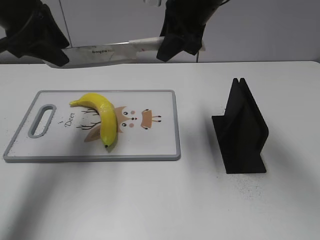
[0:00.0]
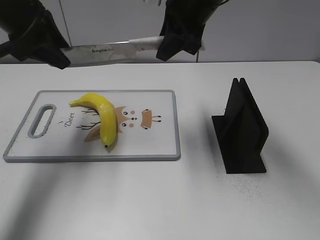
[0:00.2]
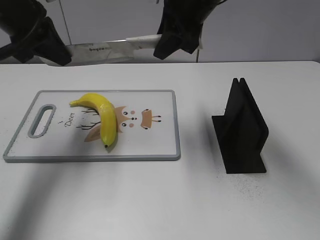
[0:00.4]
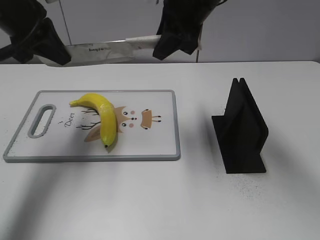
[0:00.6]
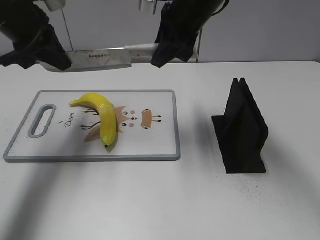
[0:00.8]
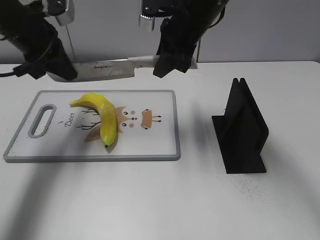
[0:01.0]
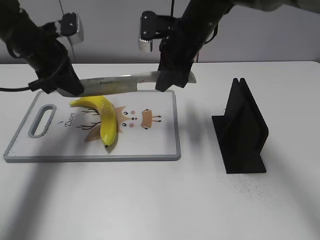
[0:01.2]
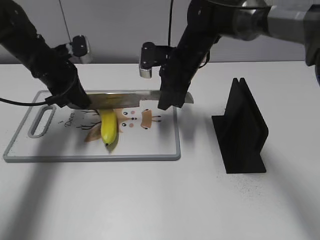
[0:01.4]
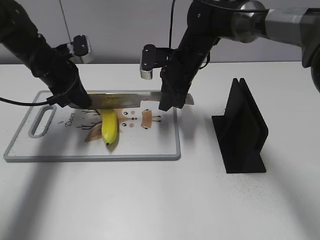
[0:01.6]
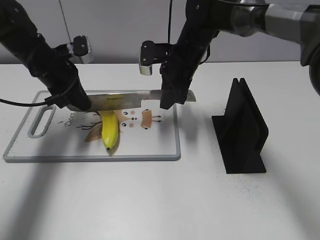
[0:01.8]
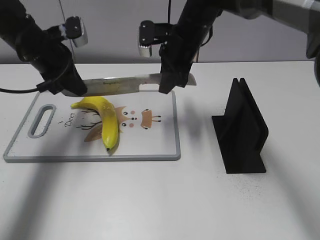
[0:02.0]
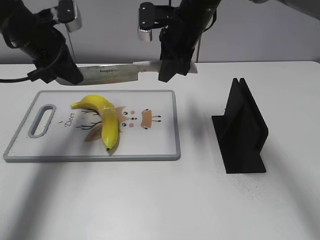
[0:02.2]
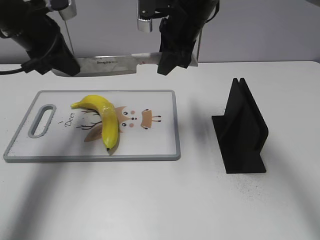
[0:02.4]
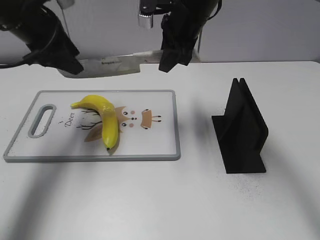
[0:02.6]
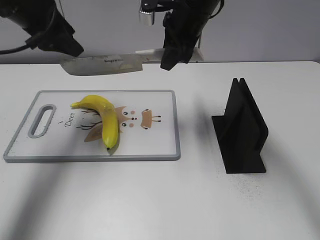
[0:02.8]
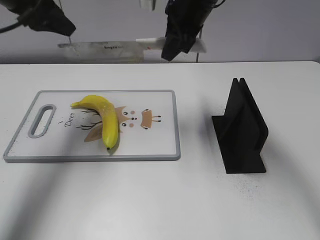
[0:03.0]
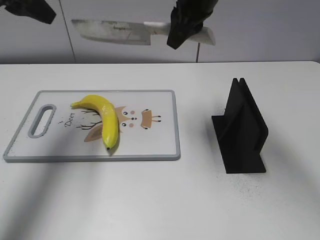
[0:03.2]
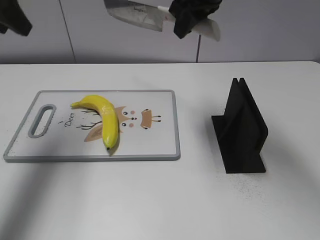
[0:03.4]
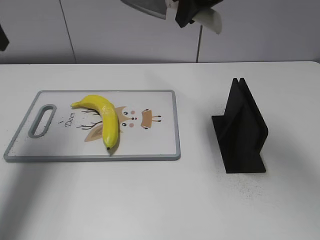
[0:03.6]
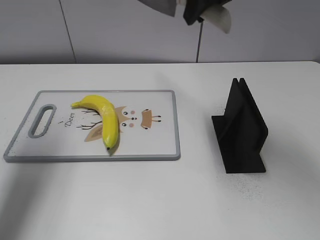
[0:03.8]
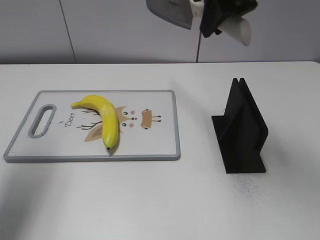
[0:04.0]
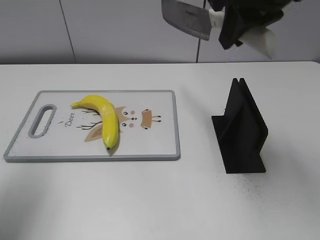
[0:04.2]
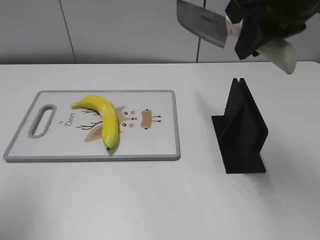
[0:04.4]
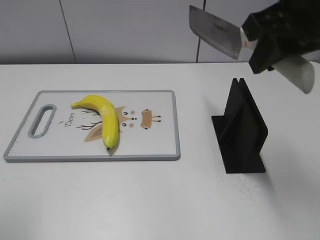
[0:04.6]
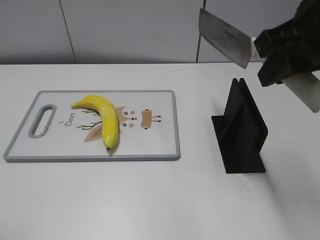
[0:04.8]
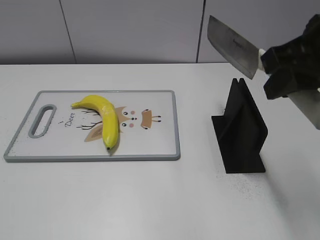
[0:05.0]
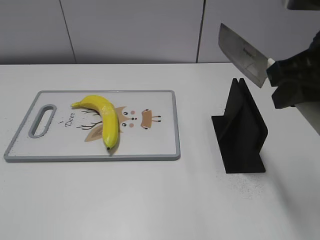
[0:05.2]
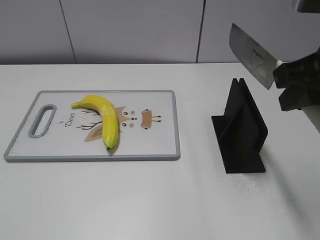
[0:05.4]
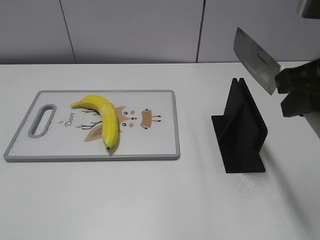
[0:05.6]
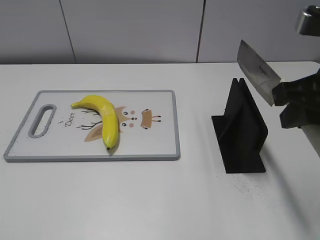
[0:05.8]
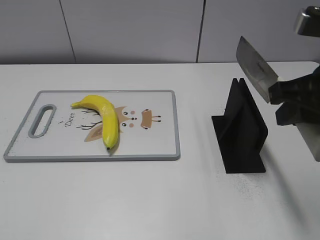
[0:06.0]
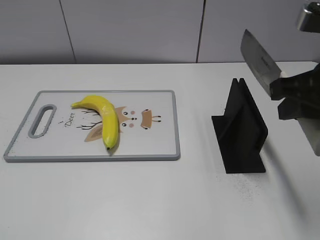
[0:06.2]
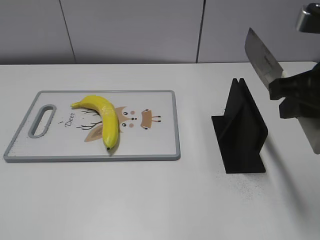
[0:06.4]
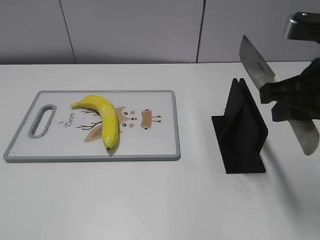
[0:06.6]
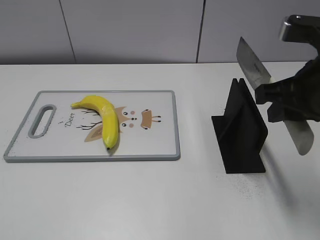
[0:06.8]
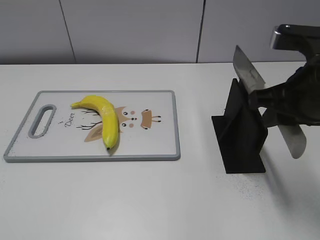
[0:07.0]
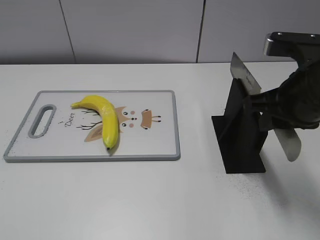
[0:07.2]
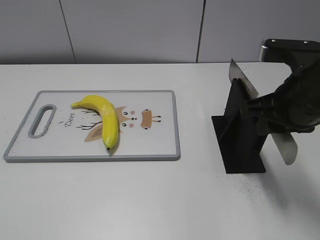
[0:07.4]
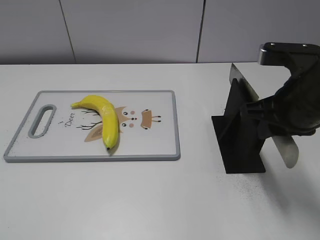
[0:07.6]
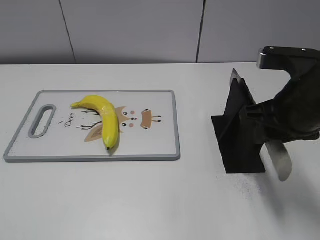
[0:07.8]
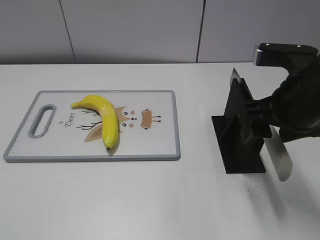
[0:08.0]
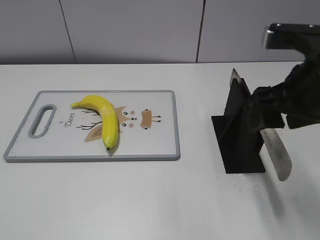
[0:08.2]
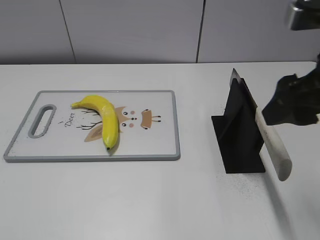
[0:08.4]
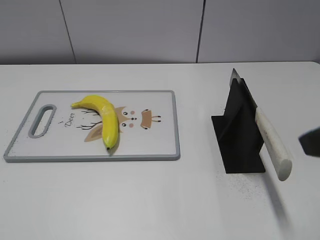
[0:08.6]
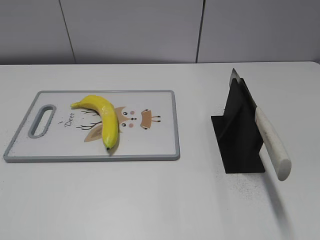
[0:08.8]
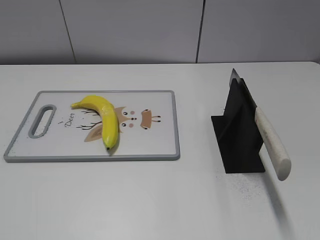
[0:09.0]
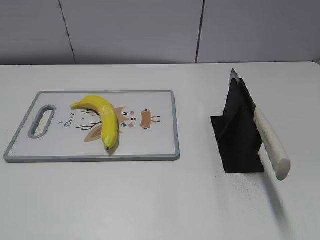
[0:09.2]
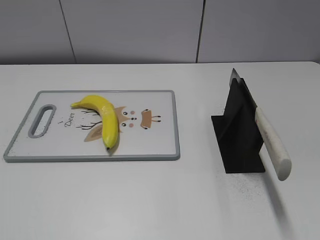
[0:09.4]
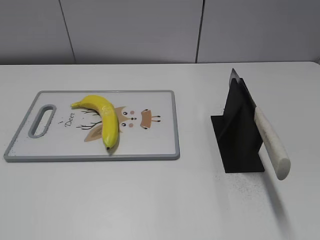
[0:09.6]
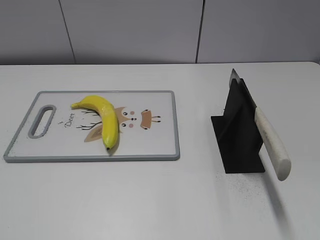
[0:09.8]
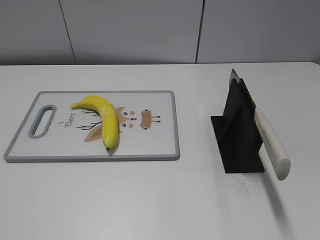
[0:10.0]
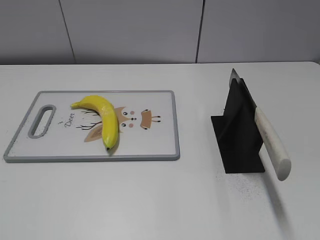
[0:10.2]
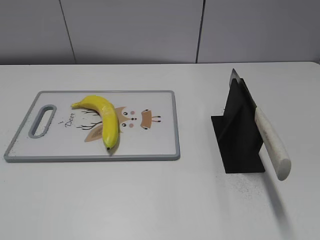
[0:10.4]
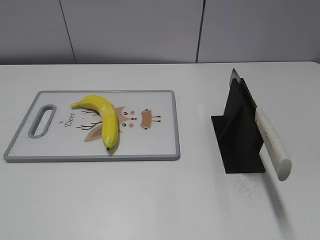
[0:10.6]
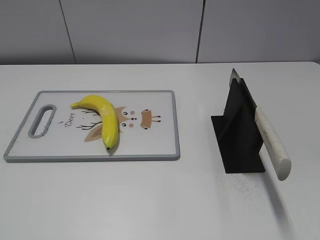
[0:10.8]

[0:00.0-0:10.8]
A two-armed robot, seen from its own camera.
Task of the whole recording: cut plastic banana.
Step, 0:00.0 to 0:02.8: Lift the knife with your right hand.
Step, 0:03.2 to 0:04.2: Cut the banana with your right hand.
Step, 0:04.4 to 0:05.4: Lift the knife with your right hand.
Step, 0:05.6 to 0:10.8: Place the knife on the storage rack with your right hand.
0:00.0 to 0:01.6: Both grippers travel together downward, some 15 cm. The left gripper closes its fingers.
0:01.6 to 0:03.0: The two grippers go about 15 cm upward. The left gripper opens up.
0:03.0 to 0:04.6: The right gripper is displaced backward, to the right and upward by about 20 cm. Meanwhile the left gripper shifts about 25 cm backward.
0:04.6 to 0:06.2: The right gripper heads downward and backward, covering about 10 cm, while the left gripper moves backward and downward, approximately 15 cm.
0:06.2 to 0:07.8: The right gripper is displaced downward by about 5 cm.
0:07.8 to 0:09.2: The right gripper moves backward and to the right, about 25 cm, and opens its fingers.

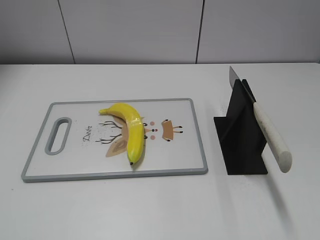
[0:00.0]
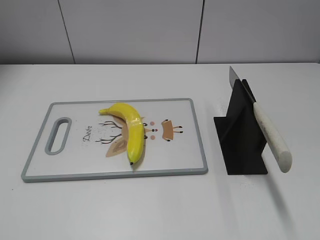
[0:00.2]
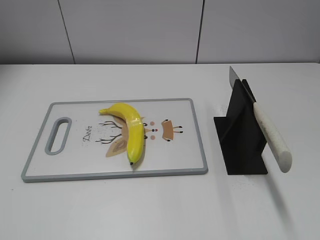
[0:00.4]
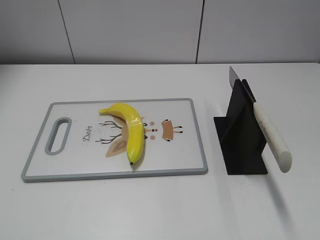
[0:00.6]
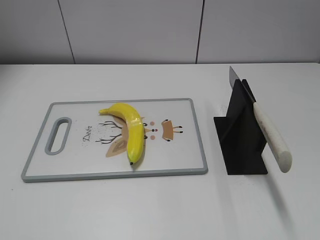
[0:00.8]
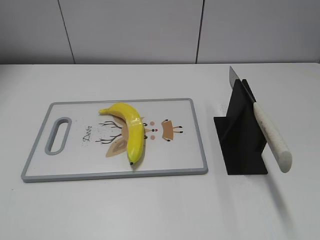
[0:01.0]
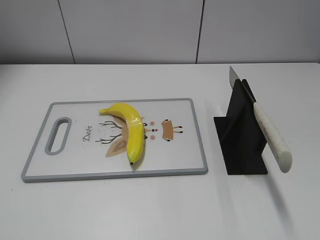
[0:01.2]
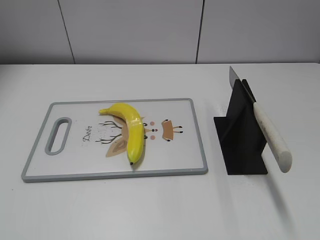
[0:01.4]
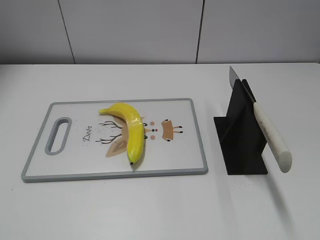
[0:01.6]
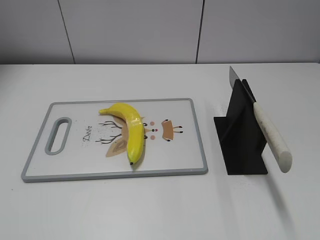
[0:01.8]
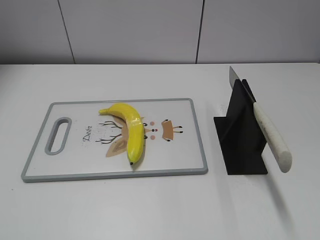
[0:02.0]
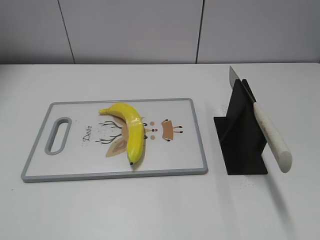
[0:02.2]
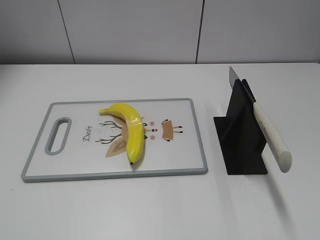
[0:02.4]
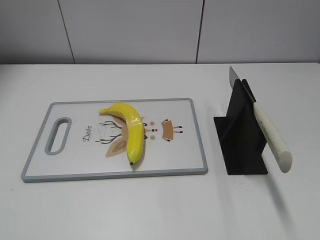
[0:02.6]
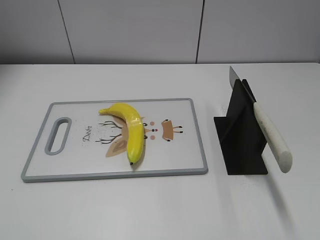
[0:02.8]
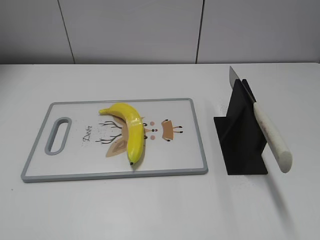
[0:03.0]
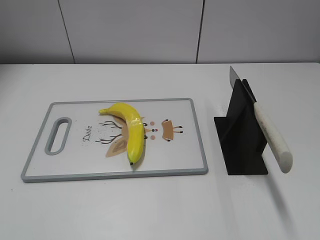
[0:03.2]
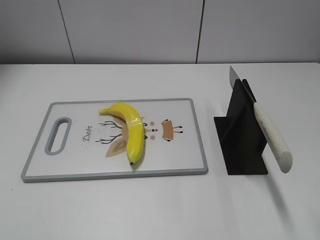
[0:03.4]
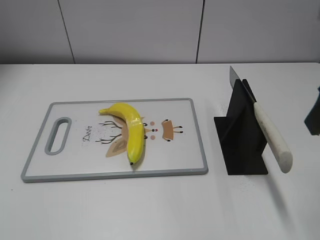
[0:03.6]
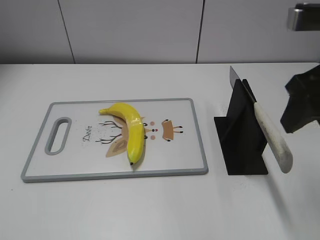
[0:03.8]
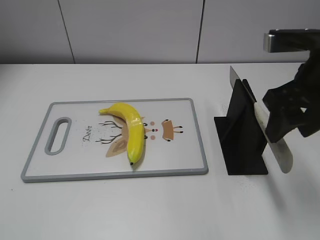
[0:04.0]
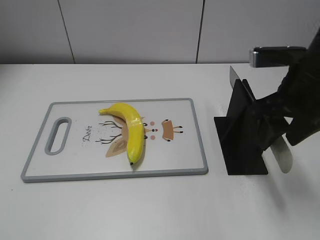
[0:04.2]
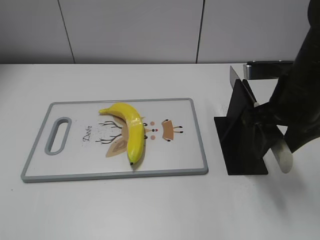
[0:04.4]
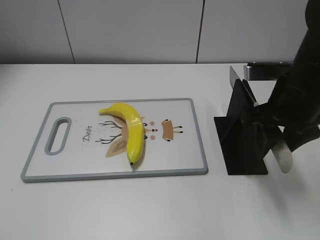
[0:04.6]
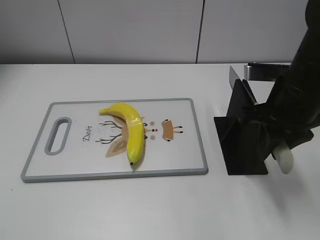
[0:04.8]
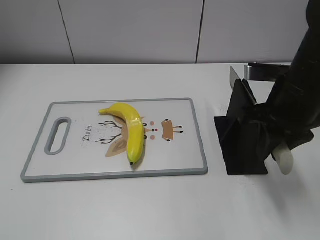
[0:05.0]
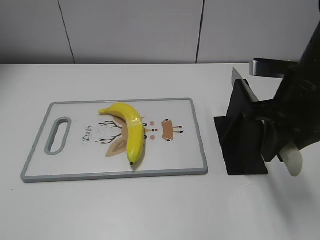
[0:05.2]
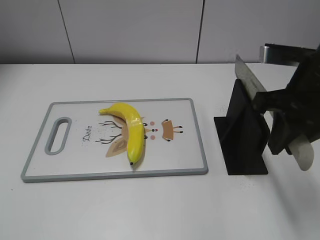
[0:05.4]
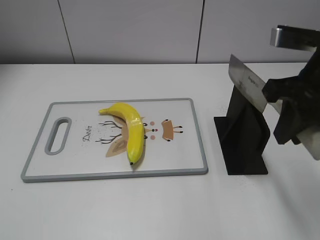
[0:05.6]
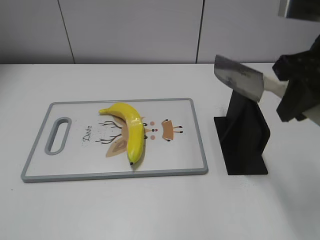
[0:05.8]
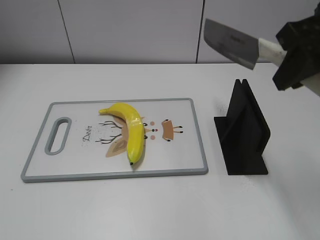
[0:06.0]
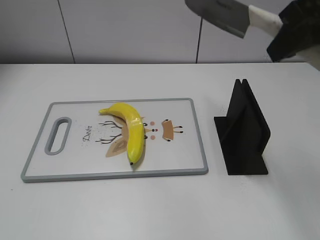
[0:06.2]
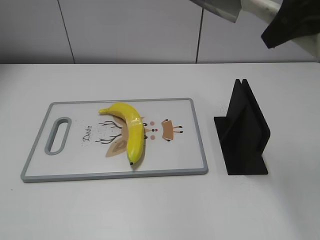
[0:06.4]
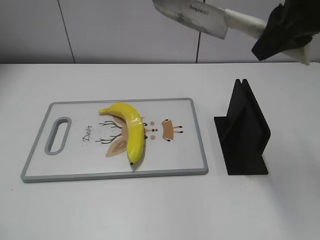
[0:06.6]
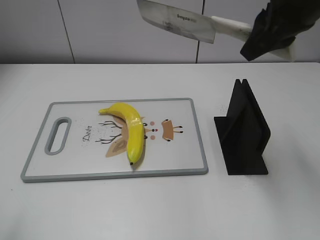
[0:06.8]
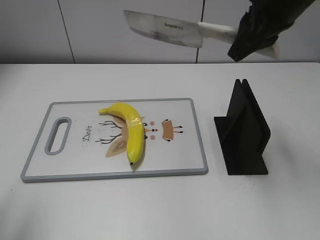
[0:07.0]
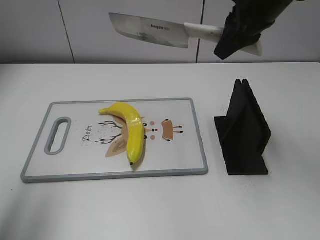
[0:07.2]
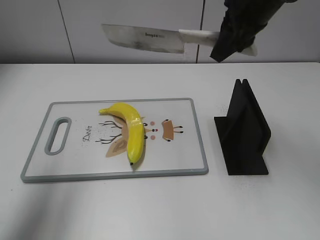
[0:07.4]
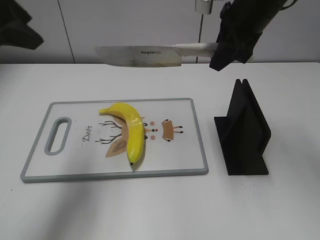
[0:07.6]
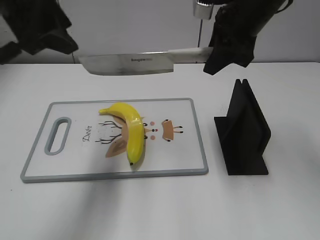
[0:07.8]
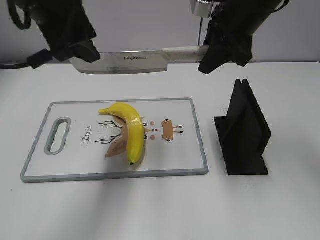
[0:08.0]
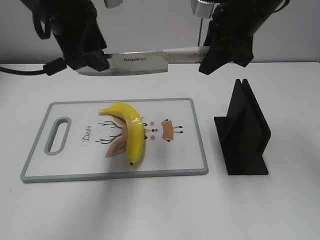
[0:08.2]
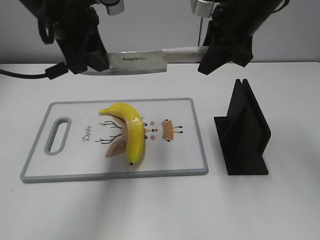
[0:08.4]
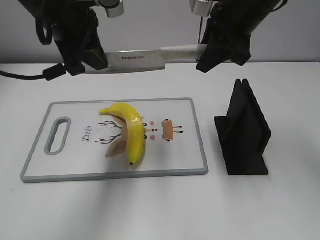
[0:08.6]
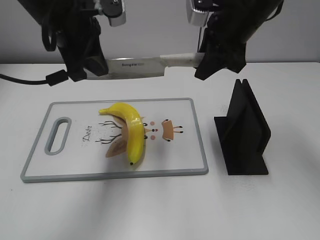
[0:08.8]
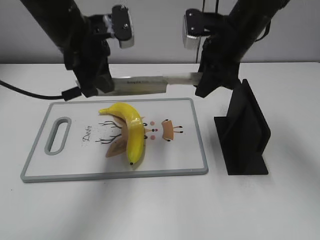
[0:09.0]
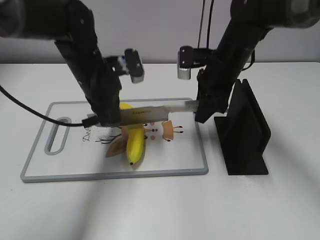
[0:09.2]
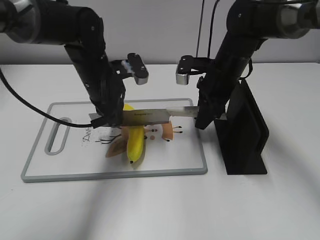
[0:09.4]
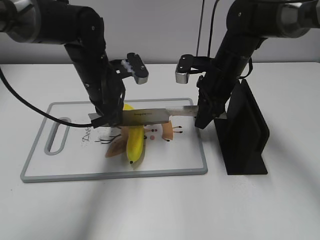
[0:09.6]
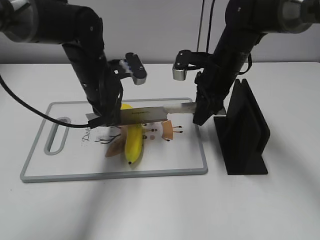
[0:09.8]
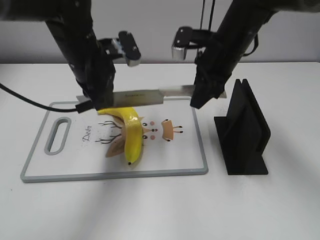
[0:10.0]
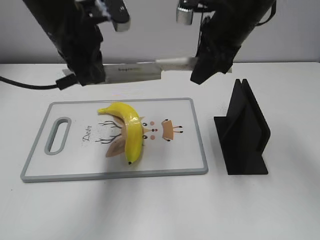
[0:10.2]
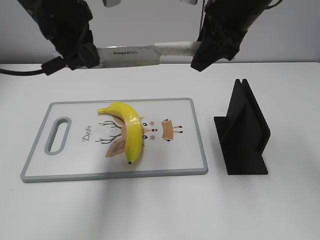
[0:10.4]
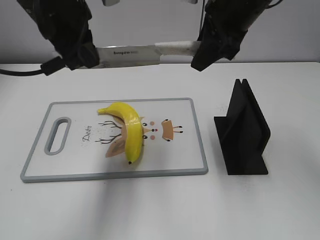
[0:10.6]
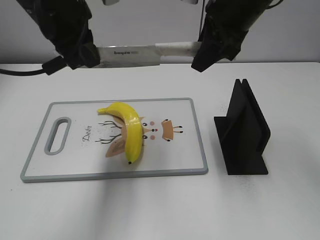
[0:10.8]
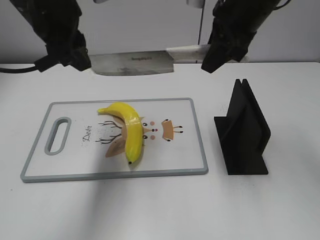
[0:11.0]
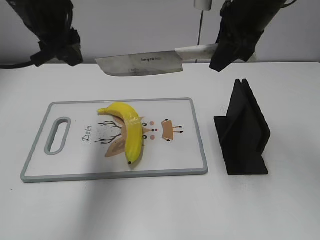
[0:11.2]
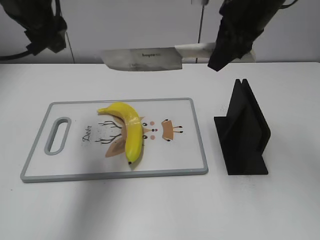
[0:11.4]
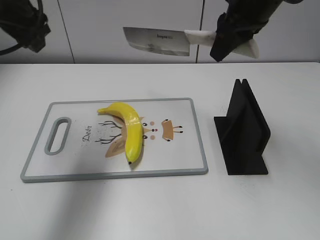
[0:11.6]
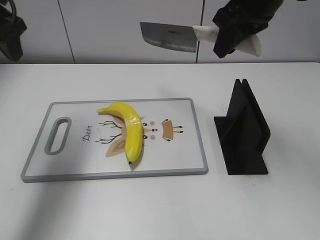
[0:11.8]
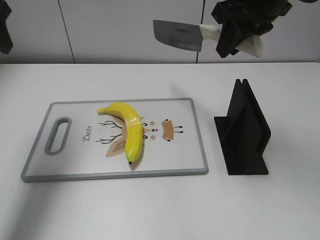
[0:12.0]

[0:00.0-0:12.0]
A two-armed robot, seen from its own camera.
Task of the whole recording: cut plastic banana.
Step, 0:00.0 to 0:05.8: Grab the knife handle with your right hand.
Step, 0:06.2 to 0:10.6: Lift the knife with your right hand.
Step, 0:10.8 to 0:11.8: Cut the banana with your right hand.
0:03.0 to 0:04.4: The right gripper travels forward, downward and to the left by approximately 20 cm.
0:04.4 to 0:06.0: The right gripper is displaced upward by about 15 cm, and closes its fingers.
0:06.0 to 0:07.6: The left gripper heads forward, covering about 25 cm; the right gripper goes about 15 cm forward, to the left and downward.
0:07.6 to 0:09.0: The right gripper is displaced downward by approximately 5 cm. The left gripper travels downward, to the right and forward by roughly 15 cm, and closes its fingers.
0:09.0 to 0:10.4: Both grippers move upward, approximately 5 cm.
0:10.4 to 0:12.0: The left gripper moves to the left, some 15 cm, and opens up.
